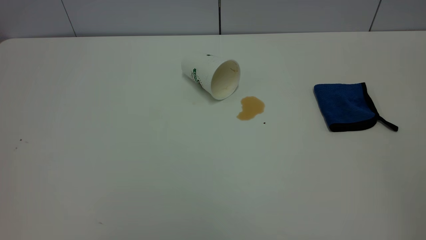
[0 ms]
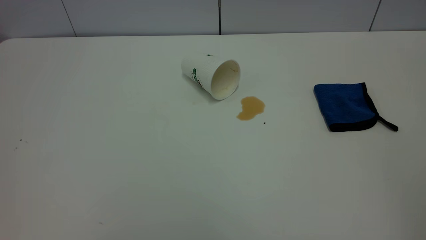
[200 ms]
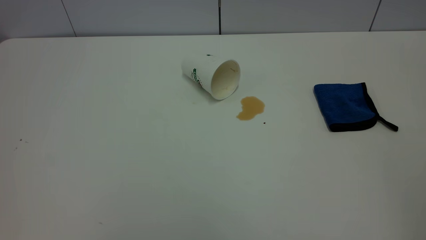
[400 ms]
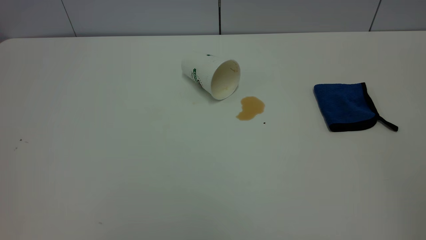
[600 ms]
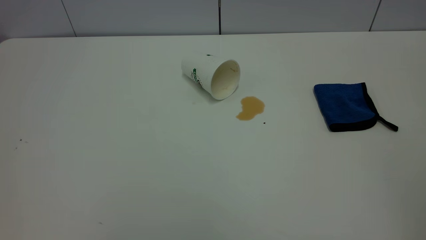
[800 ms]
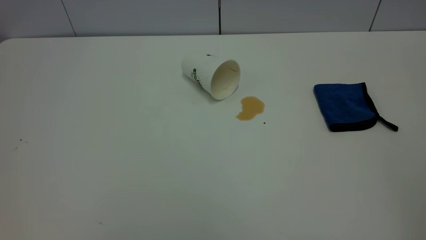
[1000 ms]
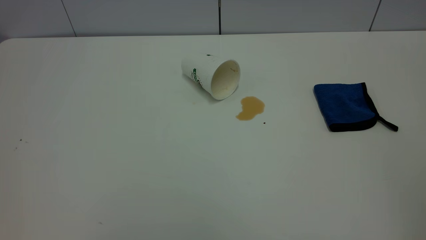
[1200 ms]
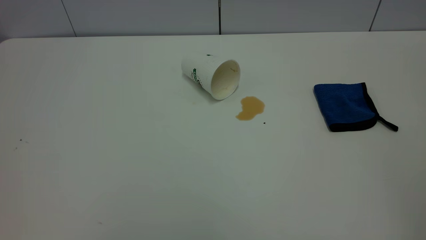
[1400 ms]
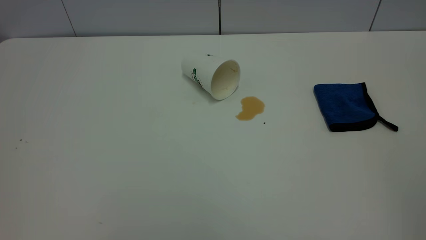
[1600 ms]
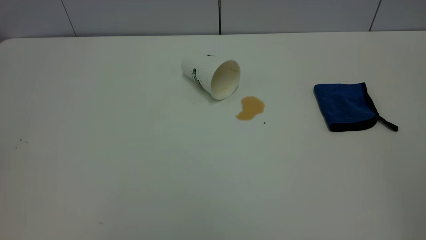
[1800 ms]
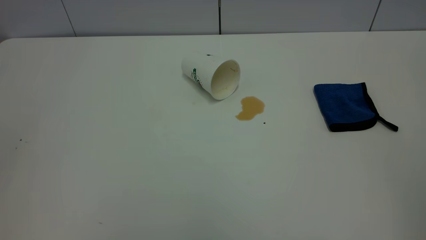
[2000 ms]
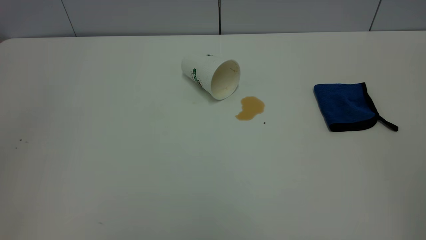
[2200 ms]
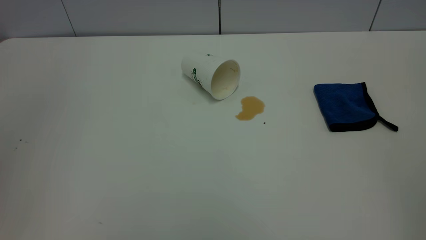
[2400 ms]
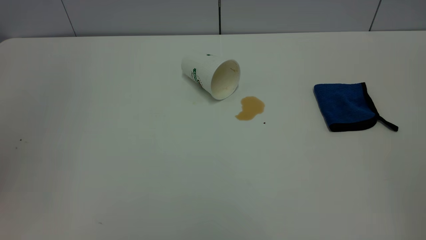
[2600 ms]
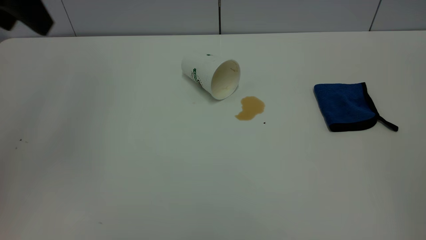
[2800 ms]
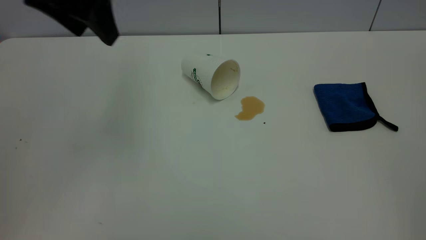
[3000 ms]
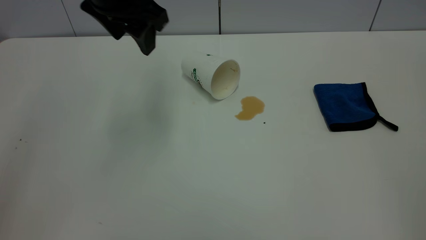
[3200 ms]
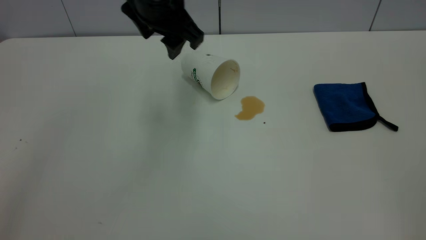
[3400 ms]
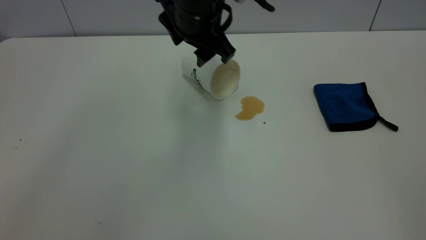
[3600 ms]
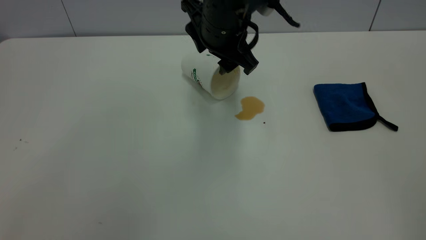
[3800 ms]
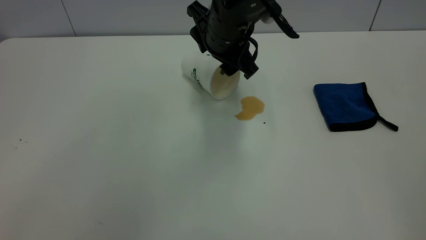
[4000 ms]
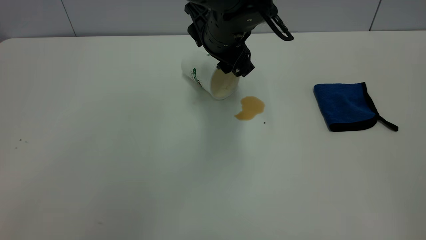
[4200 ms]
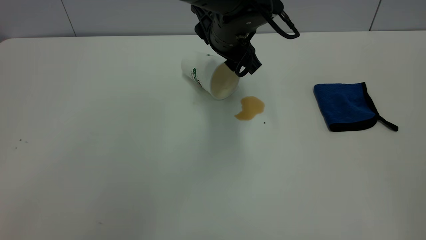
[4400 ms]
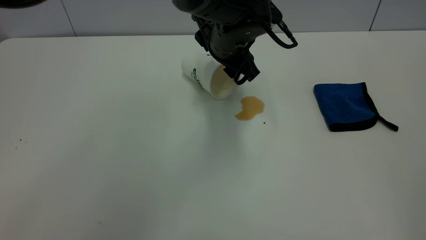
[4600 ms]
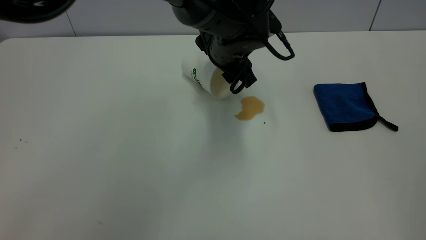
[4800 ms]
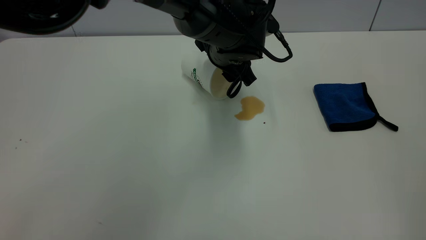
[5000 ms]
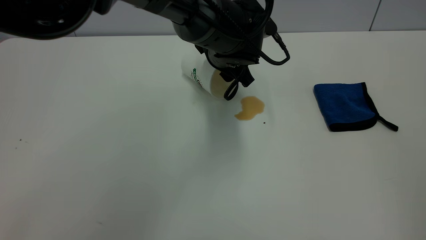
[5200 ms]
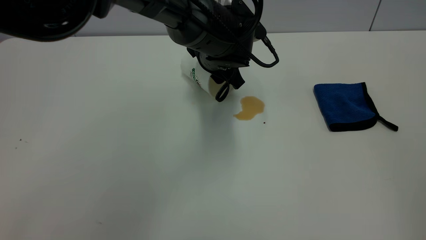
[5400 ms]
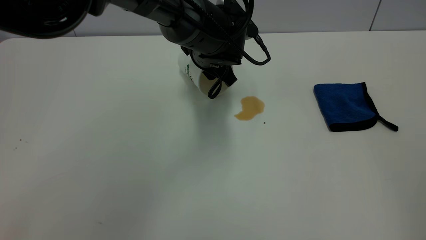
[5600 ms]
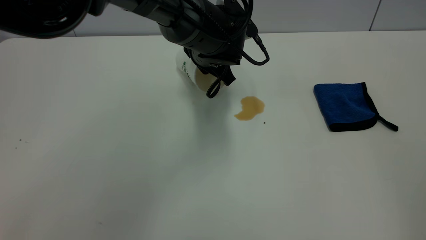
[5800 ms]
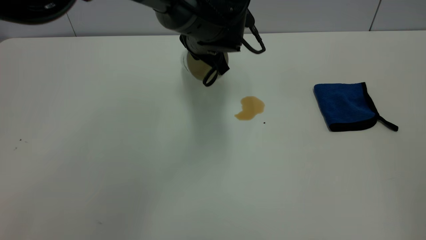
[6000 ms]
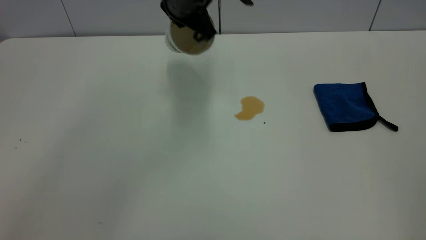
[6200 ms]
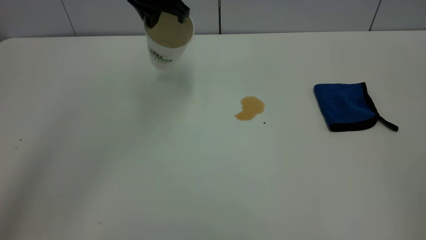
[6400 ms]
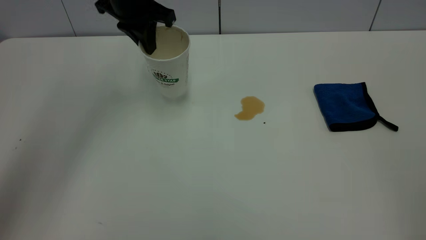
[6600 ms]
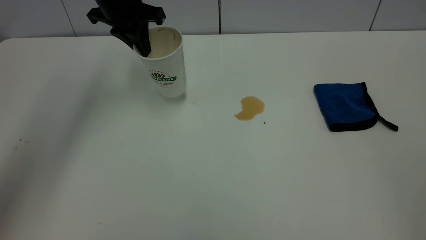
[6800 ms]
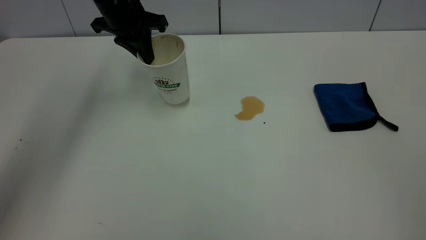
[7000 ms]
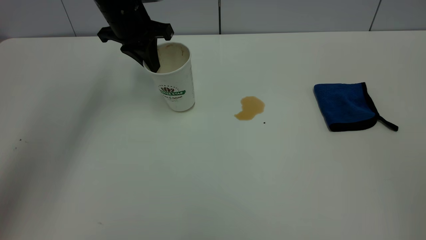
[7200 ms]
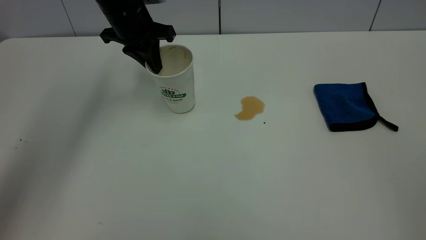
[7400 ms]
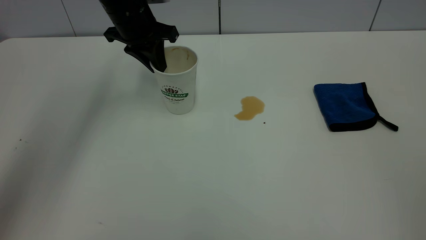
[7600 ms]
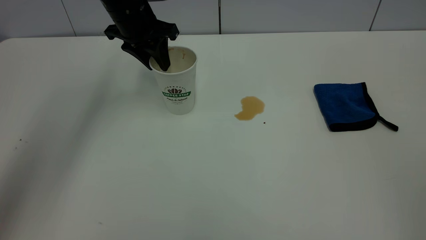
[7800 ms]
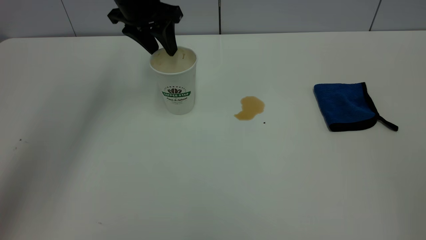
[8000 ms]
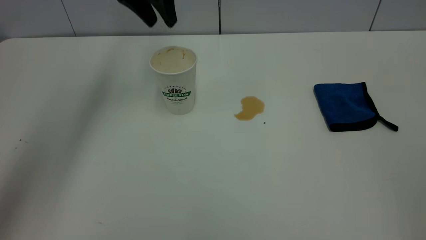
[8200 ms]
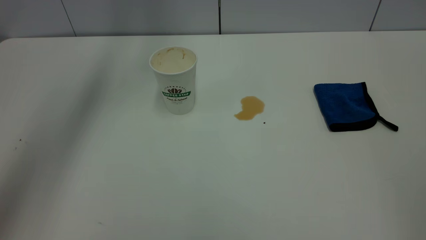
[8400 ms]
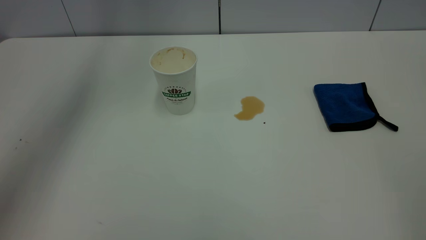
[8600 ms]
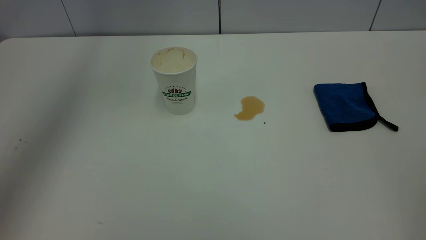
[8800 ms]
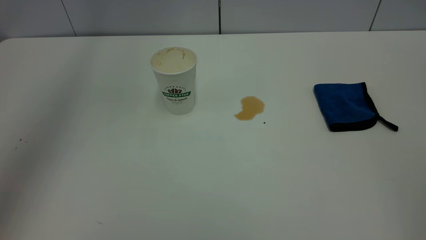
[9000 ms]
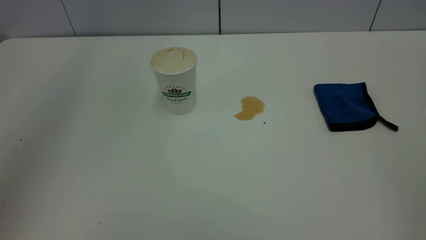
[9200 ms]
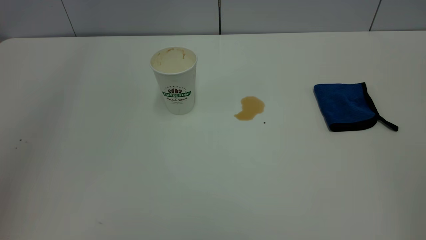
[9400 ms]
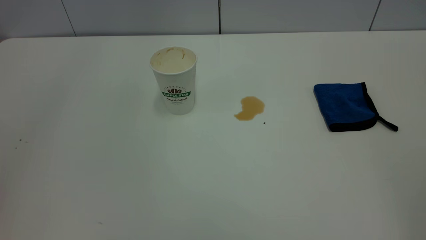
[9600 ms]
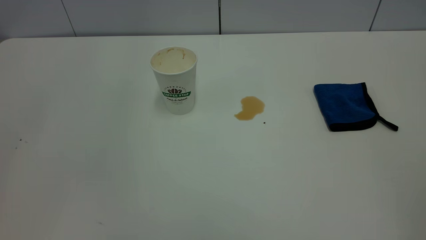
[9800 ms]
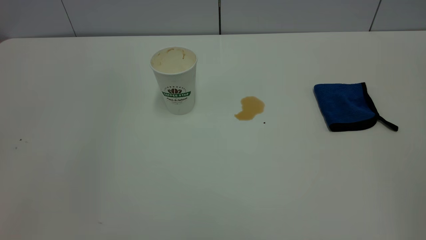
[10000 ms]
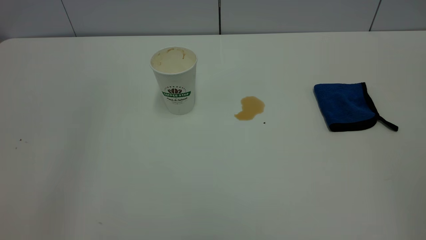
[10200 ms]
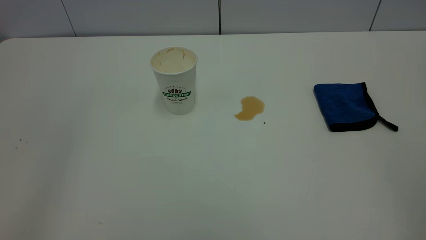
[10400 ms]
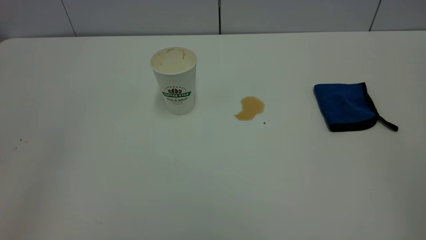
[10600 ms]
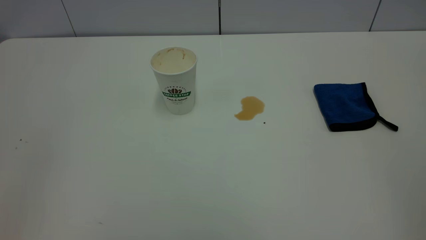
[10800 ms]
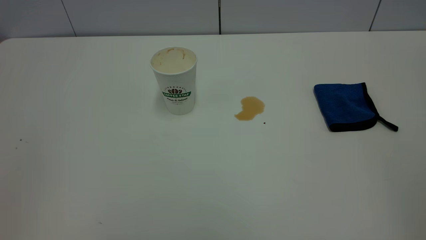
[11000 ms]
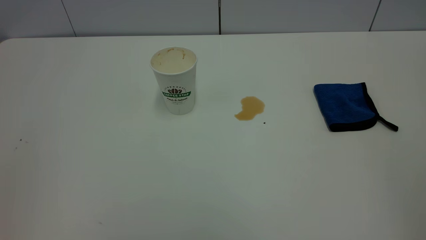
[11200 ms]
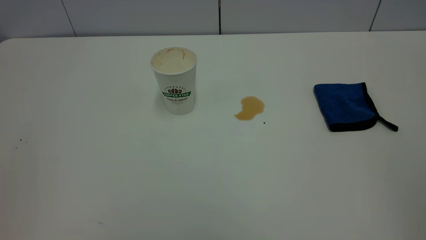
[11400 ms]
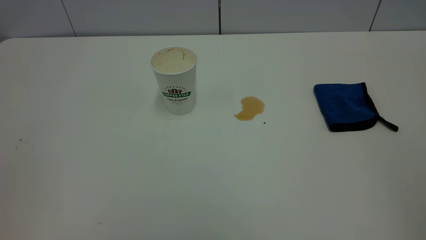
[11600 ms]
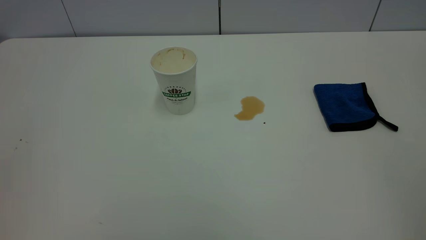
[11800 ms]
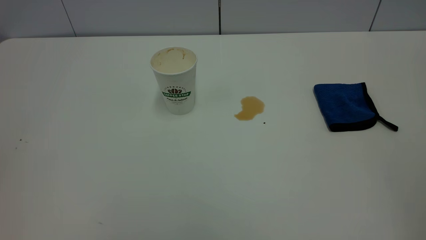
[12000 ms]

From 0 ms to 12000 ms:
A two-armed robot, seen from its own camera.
Task of the whole recording: the left gripper pick up the fallen cup and place it upright, the right gripper grasp the blue rag and wipe the tea stain on the table, the right gripper put the blue rag back in its original position.
Step, from 0 ms to 8000 ms: Stand the paper cup upright.
From 0 ms to 1600 ms: Both grippers stay about where they are.
From 1600 ms to 3000 ms: The left gripper travels forward and to the right by roughly 40 cm.
From 3000 ms to 4400 ms: The left gripper heads to the right and downward, covering roughly 25 cm.
From 4400 ms to 6000 ms: The left gripper shifts by about 5 cm, and closes up.
From 6000 ms to 7600 ms: The left gripper moves to the left, some 15 cm.
From 7600 ms to 9000 ms: The left gripper moves upward, approximately 40 cm, and opens its fingers.
From 9000 ms to 10400 ms: The left gripper travels backward, downward and to the left by some 35 cm.

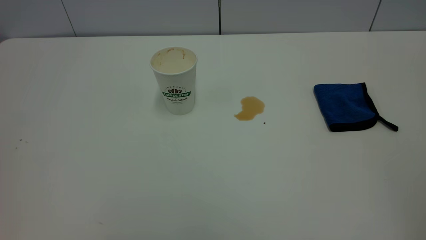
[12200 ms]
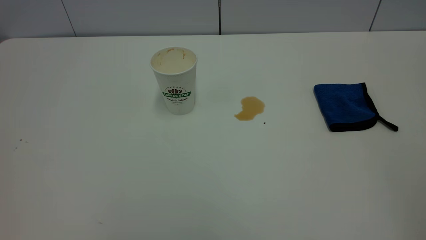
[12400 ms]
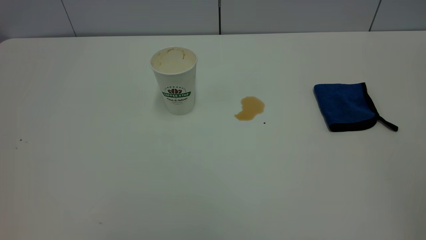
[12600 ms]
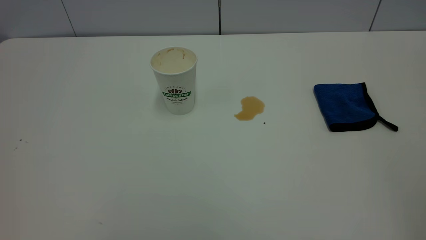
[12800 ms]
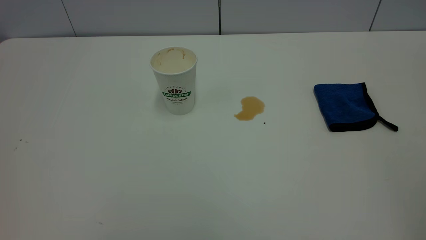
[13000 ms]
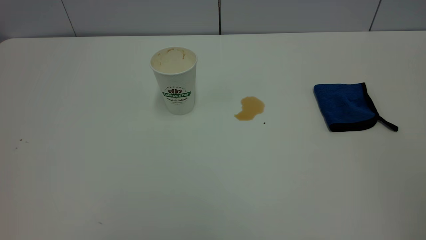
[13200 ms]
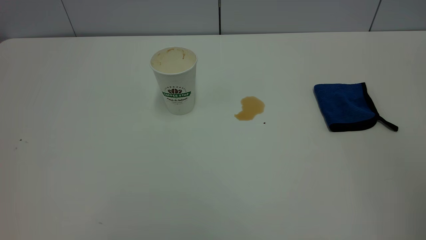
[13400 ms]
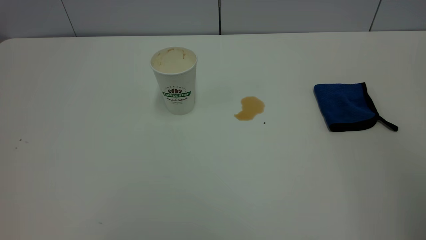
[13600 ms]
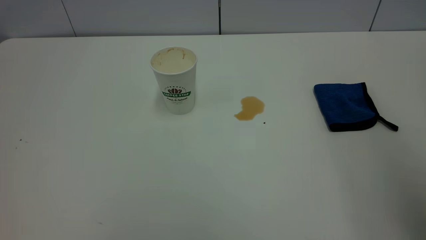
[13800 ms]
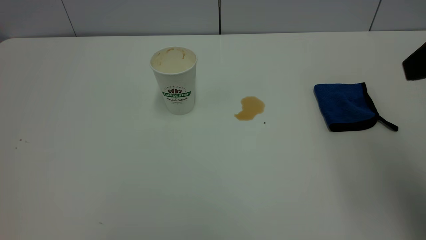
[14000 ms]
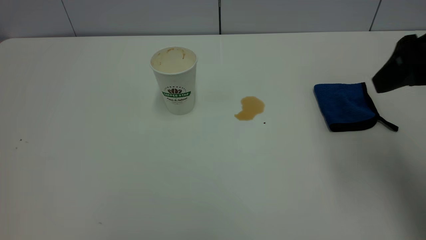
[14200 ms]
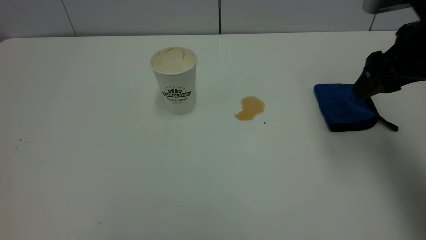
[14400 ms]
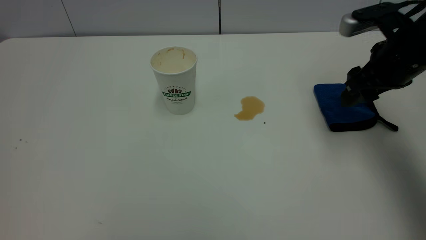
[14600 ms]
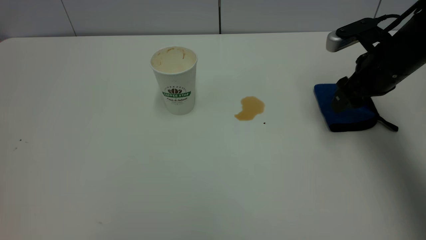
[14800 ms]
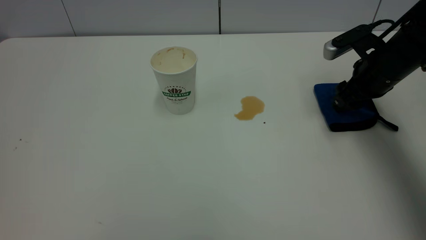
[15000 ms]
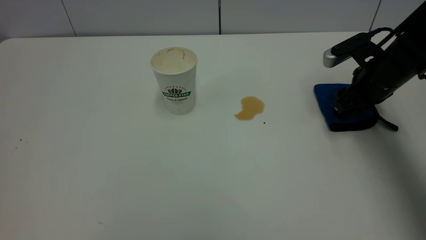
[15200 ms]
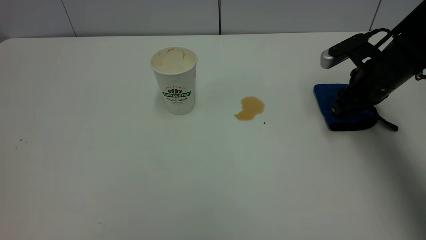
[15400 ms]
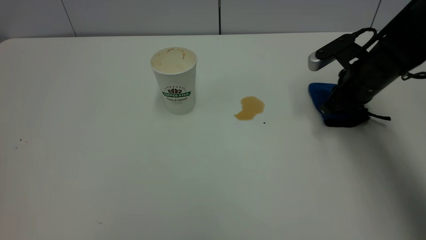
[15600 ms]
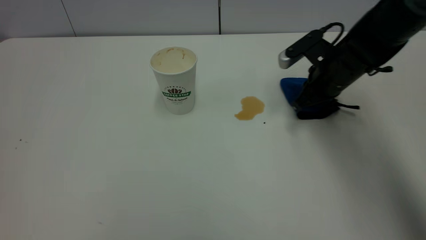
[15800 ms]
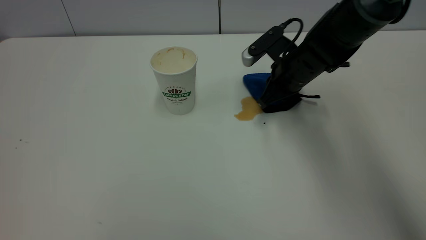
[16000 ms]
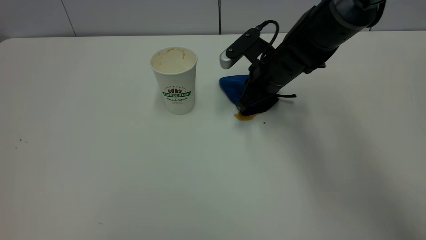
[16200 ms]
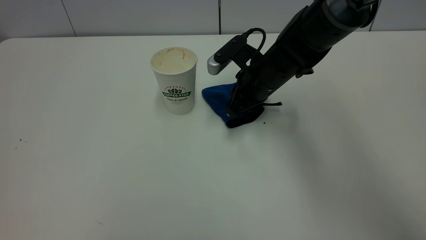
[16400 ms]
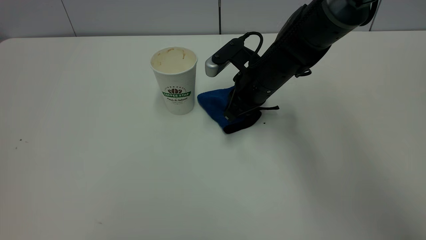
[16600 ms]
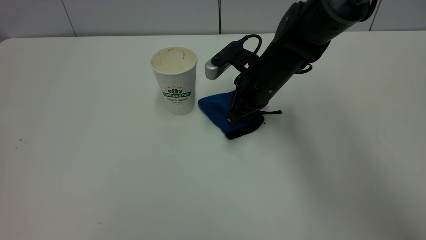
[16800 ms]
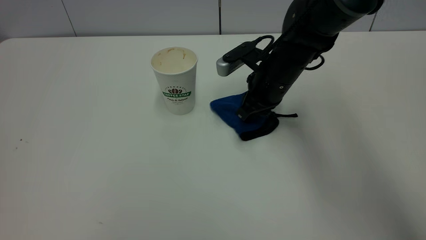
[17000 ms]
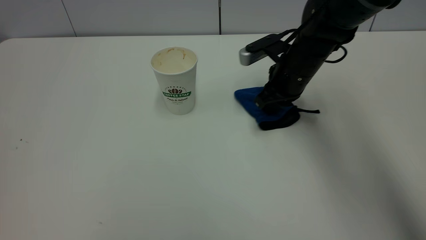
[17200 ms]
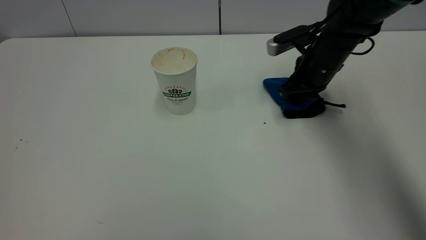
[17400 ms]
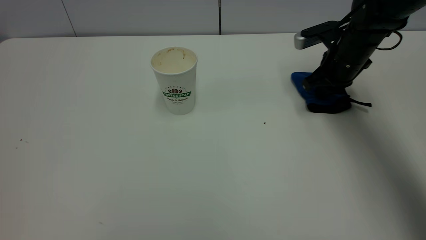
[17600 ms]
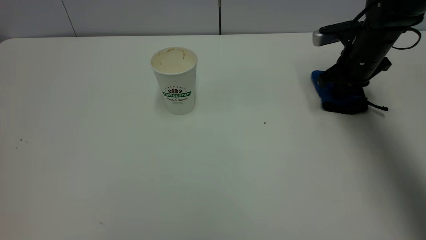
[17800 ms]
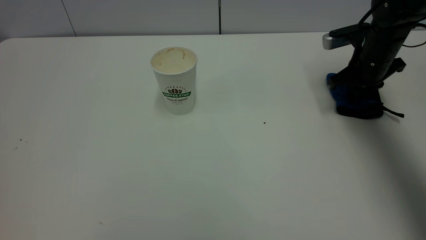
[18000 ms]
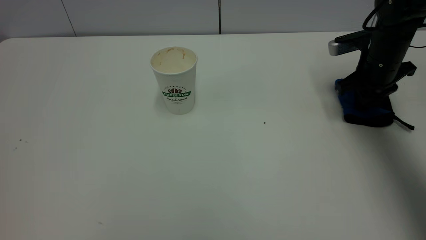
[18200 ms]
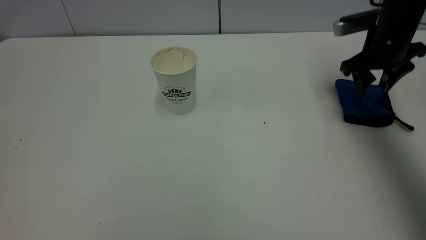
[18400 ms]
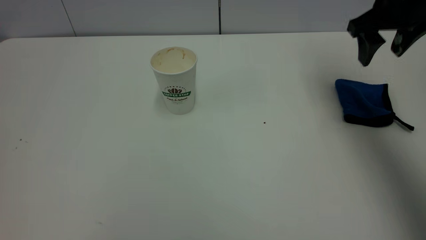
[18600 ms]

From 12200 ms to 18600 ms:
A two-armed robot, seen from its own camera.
Task of the whole recording: the left gripper pick up the fallen cup and place it upright, the right gripper grasp the blue rag and wipe the tea stain on the table, the right gripper put the blue rag back in its original position.
Step, from 12200 ms to 18600 ms: Wipe the stains off the table with a rag.
From 12200 ms to 13800 ms: The right gripper goes some 20 cm forward.
From 13800 ms to 15400 ms: The right gripper heads downward and forward, covering some 35 cm, and closes its fingers.
From 15400 ms to 17000 ms: The right gripper is displaced to the left by approximately 15 cm, and closes up.
From 17000 ms to 18600 ms: The right gripper heads upward and to the right, covering approximately 20 cm, and opens.
